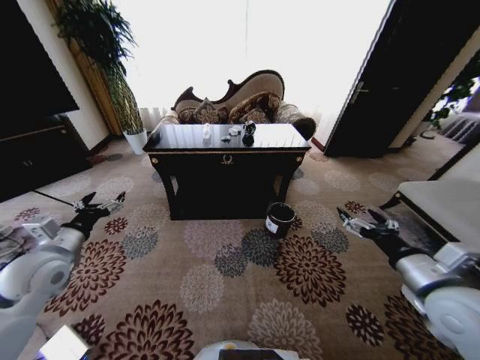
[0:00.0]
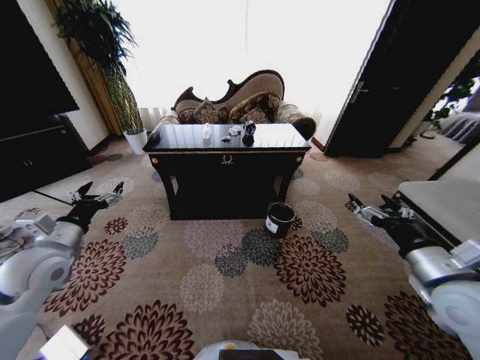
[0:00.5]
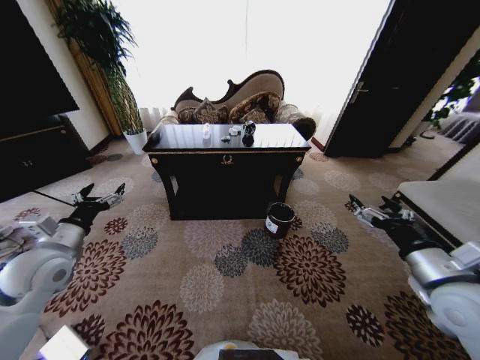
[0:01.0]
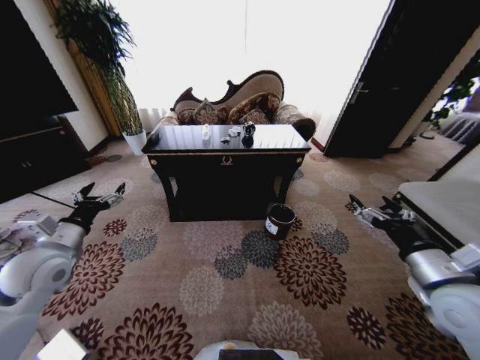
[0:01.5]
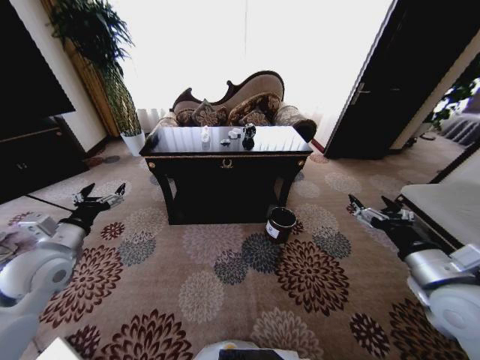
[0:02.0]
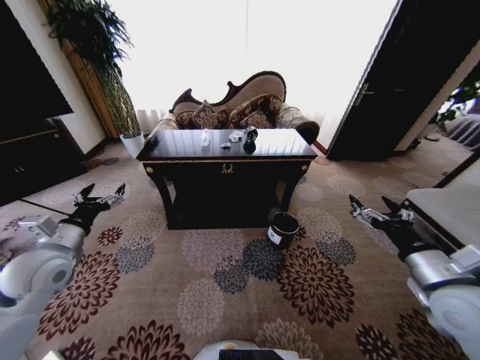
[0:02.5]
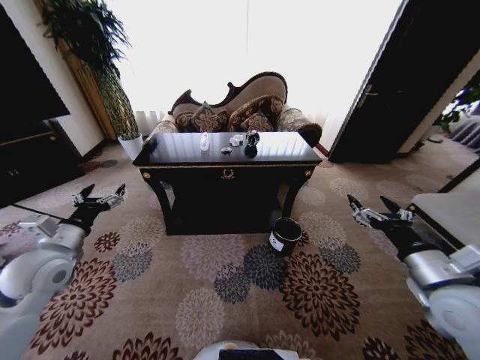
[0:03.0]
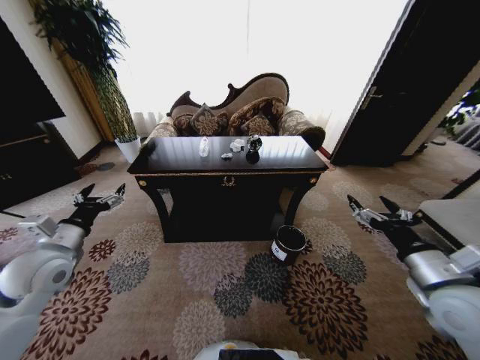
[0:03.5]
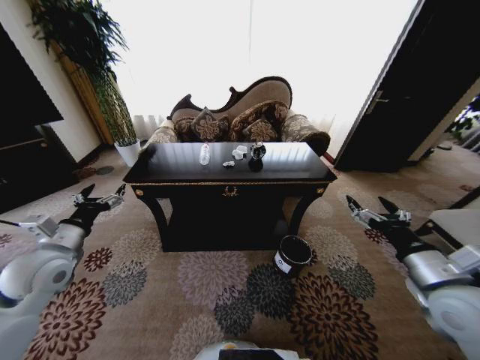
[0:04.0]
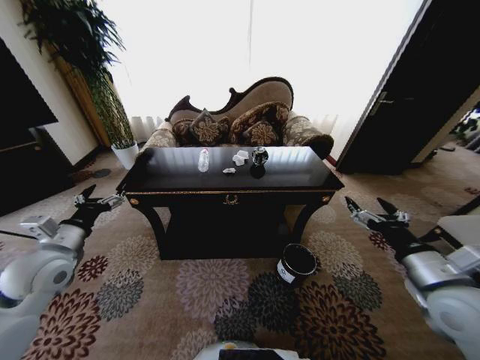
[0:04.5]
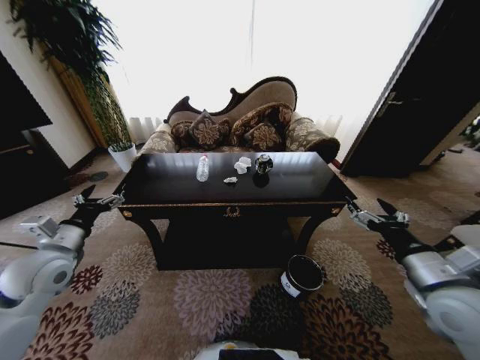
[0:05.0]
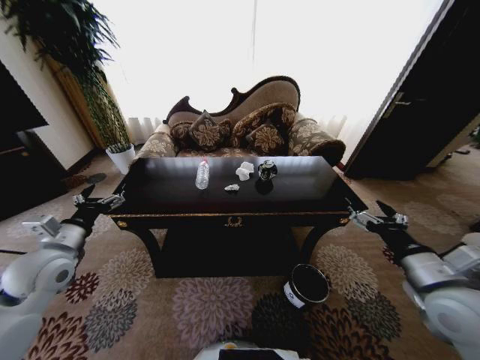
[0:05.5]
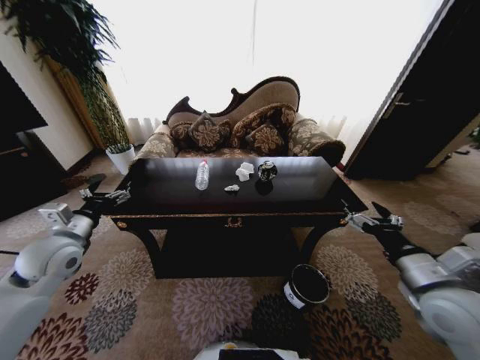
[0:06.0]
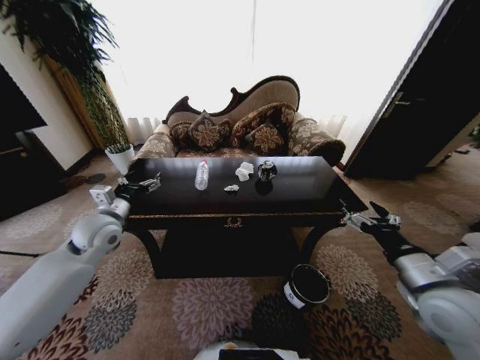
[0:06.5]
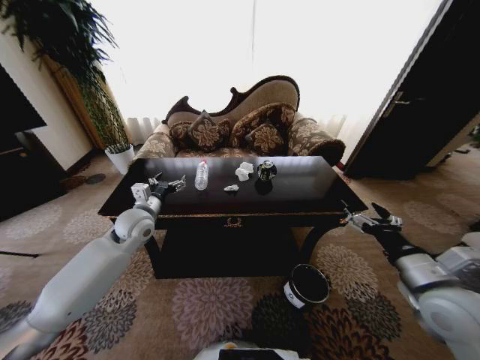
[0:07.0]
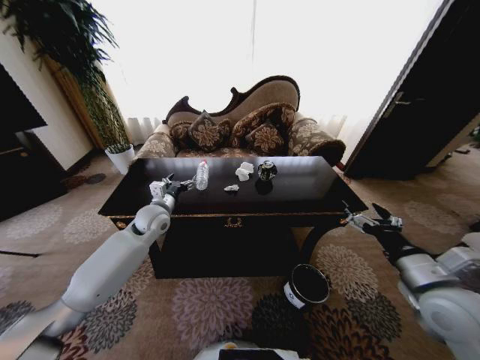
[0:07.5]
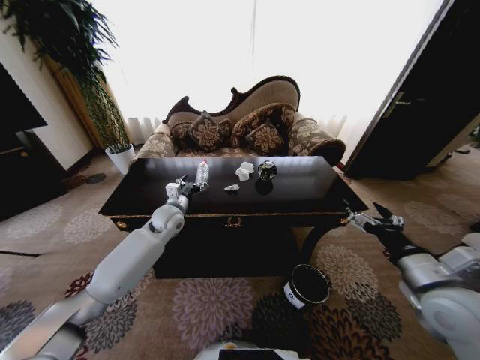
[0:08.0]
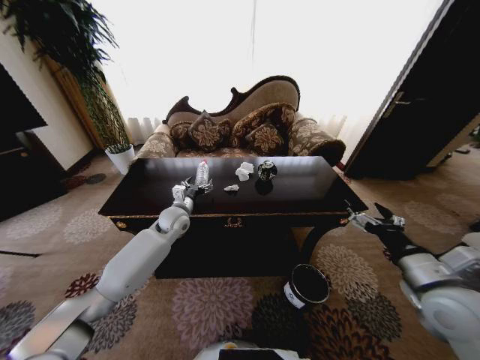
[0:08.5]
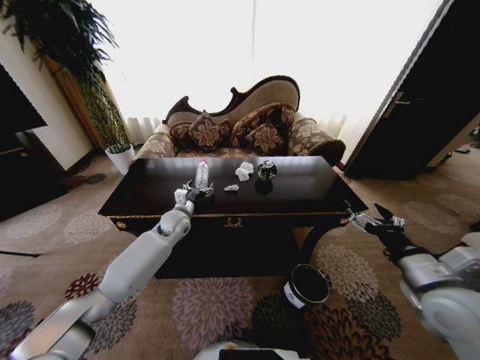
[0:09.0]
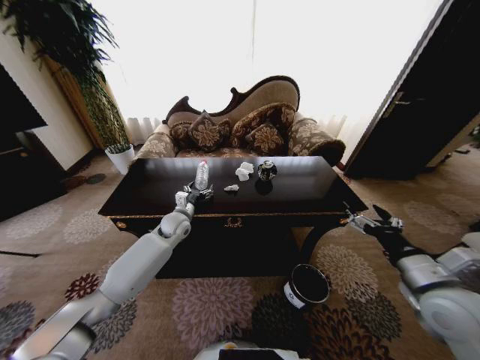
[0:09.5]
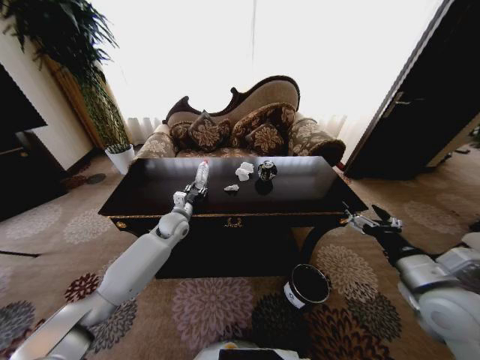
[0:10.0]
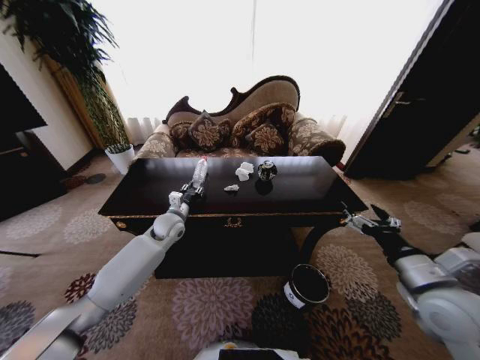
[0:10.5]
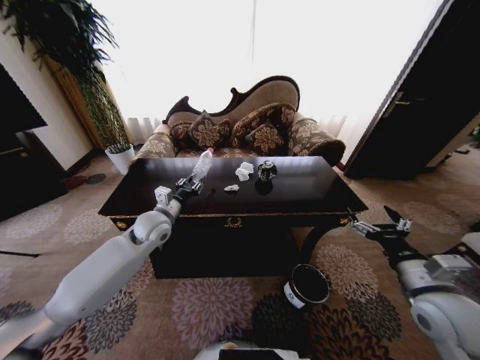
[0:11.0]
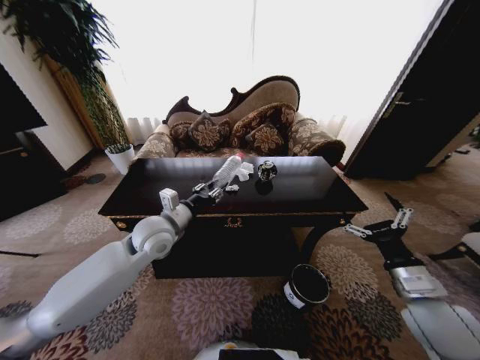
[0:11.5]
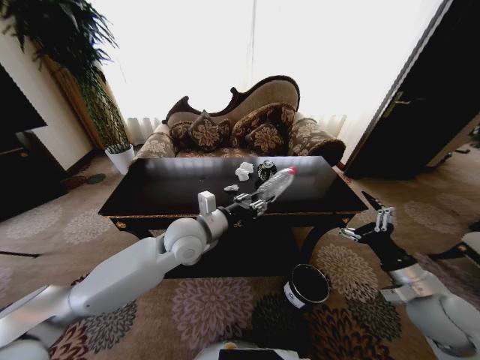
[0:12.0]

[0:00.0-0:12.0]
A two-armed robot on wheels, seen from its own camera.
Task of the whole recording: Move to the front of the table and place the trash on the table into the trash bin.
0:06.0 to 0:08.0: The left gripper goes about 25 cm to the right and forward.
0:08.0 to 0:10.0: The left gripper closes its fingers.
0:10.0 to 0:12.0: The right gripper moves downward, roughly 5 cm, while the left gripper is displaced backward, upward and to the right by some 20 cm.

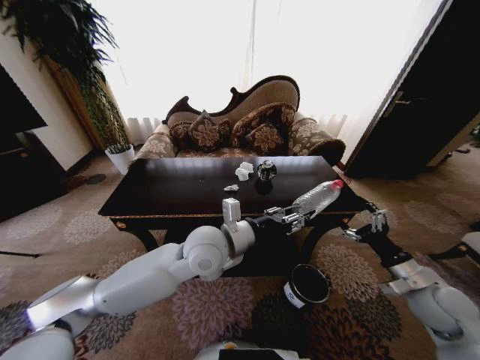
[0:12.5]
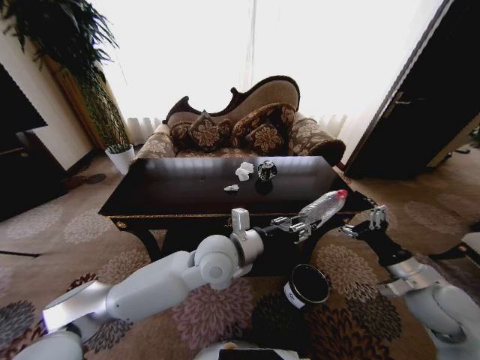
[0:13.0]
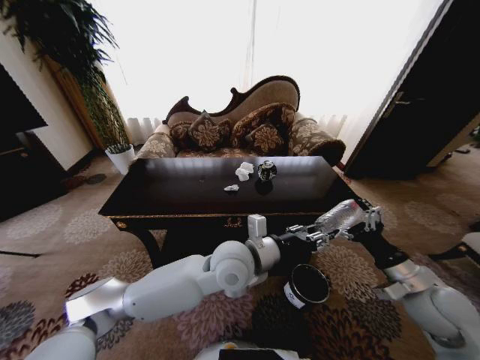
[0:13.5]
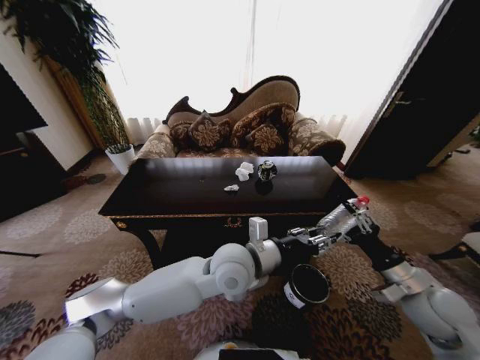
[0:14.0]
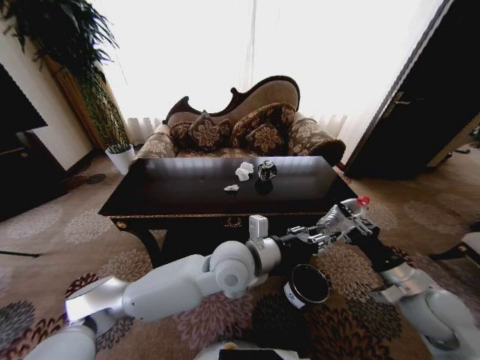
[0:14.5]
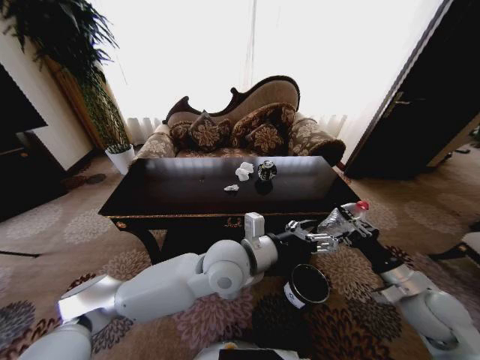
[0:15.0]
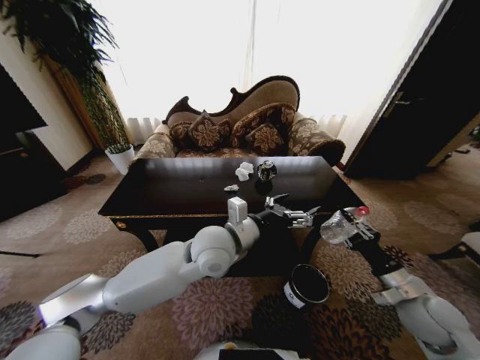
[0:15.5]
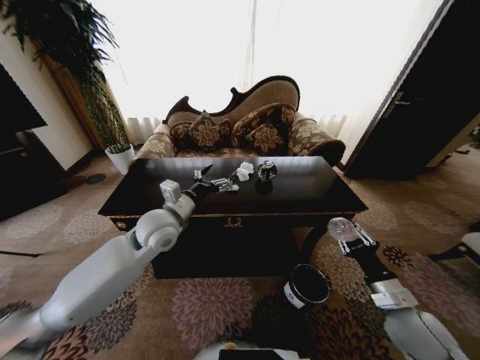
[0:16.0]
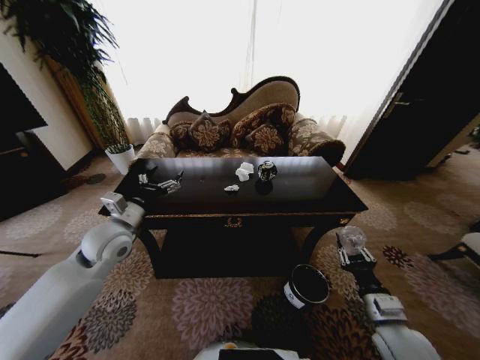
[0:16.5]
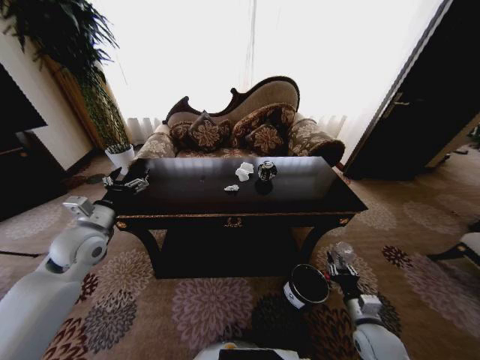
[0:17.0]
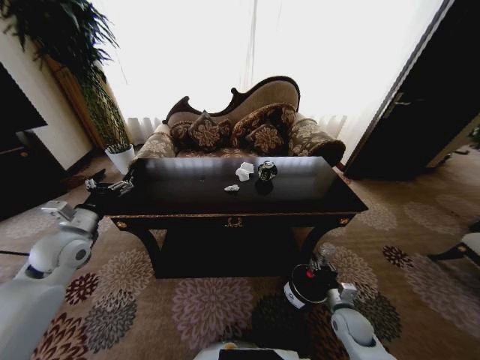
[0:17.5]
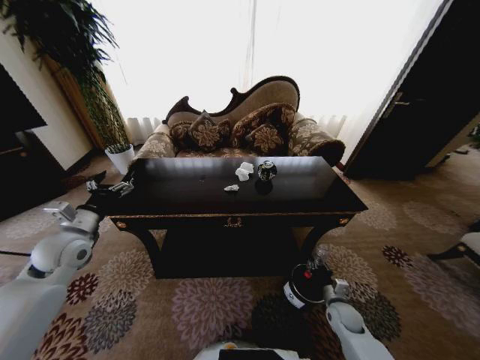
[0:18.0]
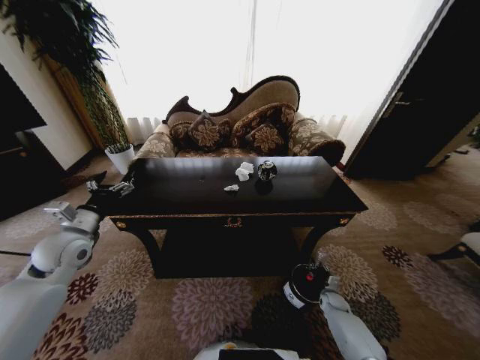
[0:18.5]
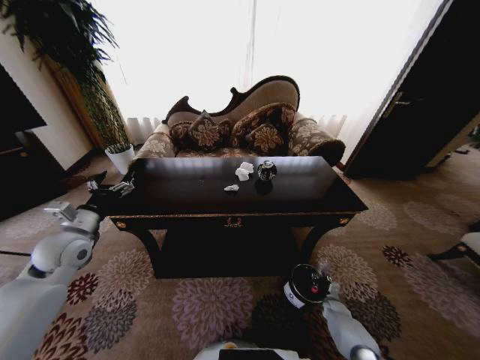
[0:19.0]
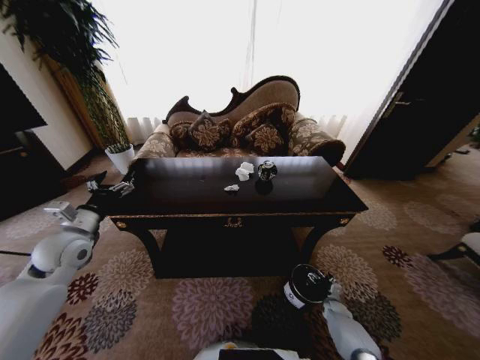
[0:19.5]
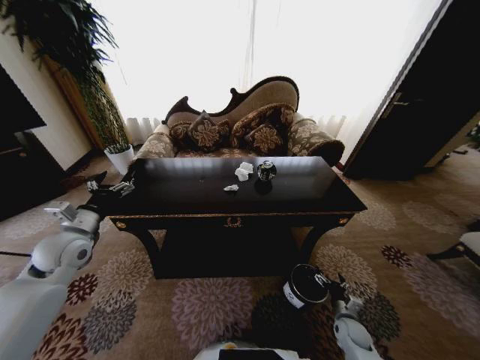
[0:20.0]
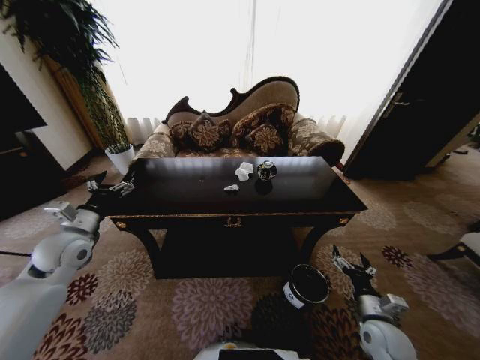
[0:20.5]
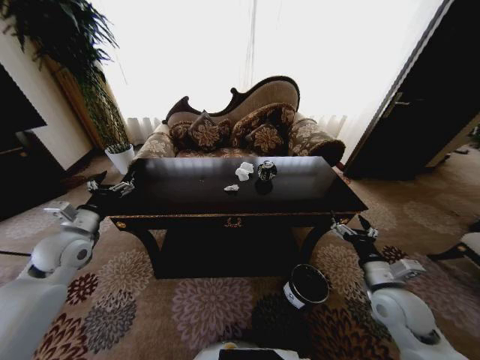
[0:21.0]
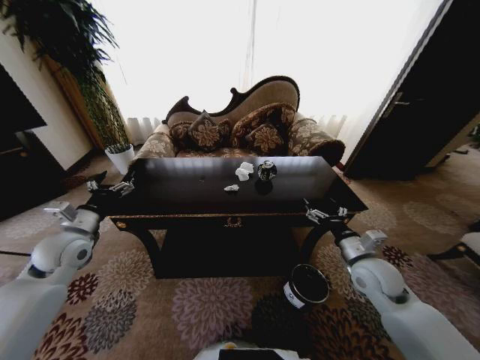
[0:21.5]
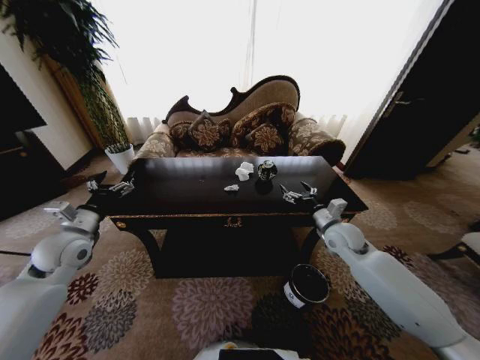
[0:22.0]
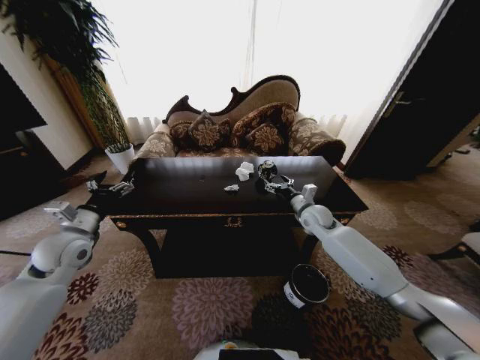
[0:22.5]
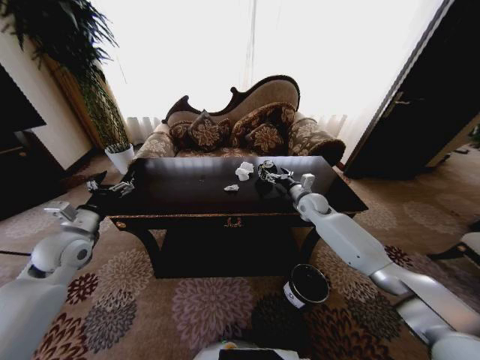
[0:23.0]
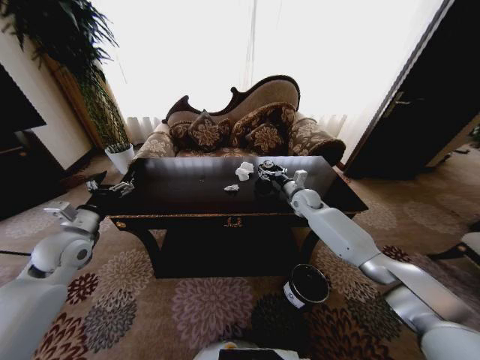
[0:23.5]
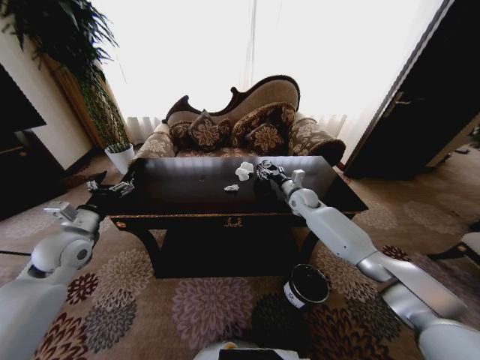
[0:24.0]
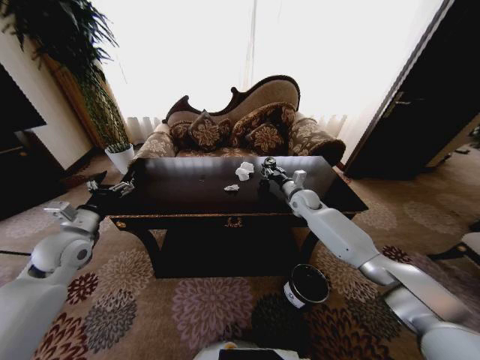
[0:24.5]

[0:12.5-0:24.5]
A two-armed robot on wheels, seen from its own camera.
Task of the whole recording: Move to the front of the table and place the trash on the table into the trash bin.
0:12.5 to 0:14.5: The right gripper closes; the left gripper shifts roughly 5 cm to the right.
0:14.5 to 0:16.5: The left gripper travels to the left by about 30 cm, and opens up; the right gripper goes roughly 10 cm downward, to the left and backward.
0:16.5 to 0:18.5: The left gripper shifts some 10 cm to the left; the right gripper moves downward and forward, approximately 30 cm.
0:18.5 to 0:20.5: The right gripper travels upward and backward by some 25 cm, and opens its fingers.
0:20.5 to 0:22.5: The right gripper goes roughly 35 cm forward and upward.
0:22.5 to 0:24.5: The right gripper travels forward by roughly 10 cm, and closes up.

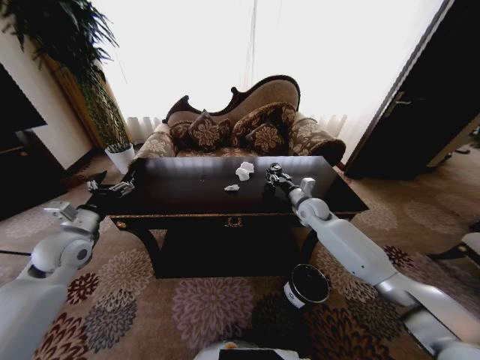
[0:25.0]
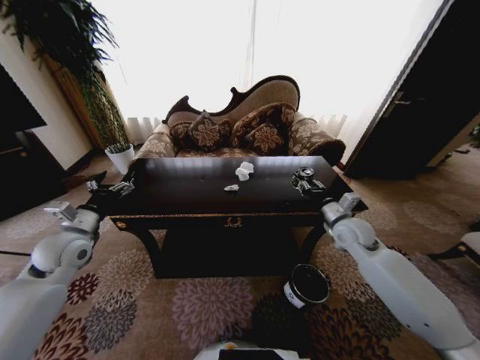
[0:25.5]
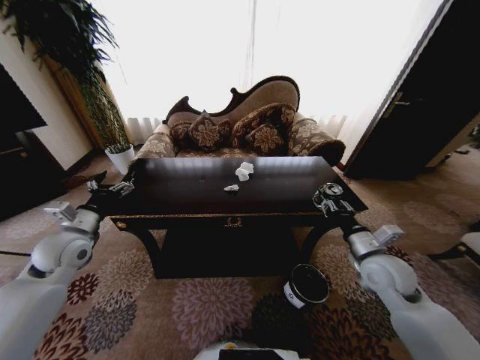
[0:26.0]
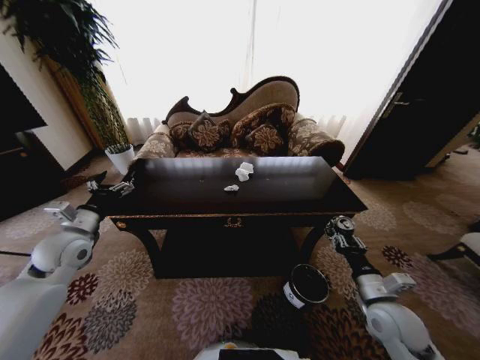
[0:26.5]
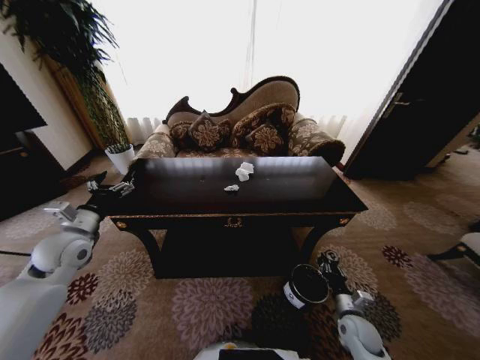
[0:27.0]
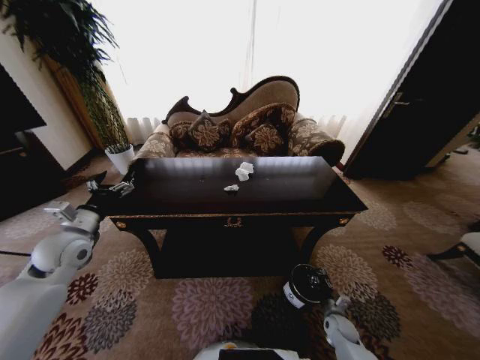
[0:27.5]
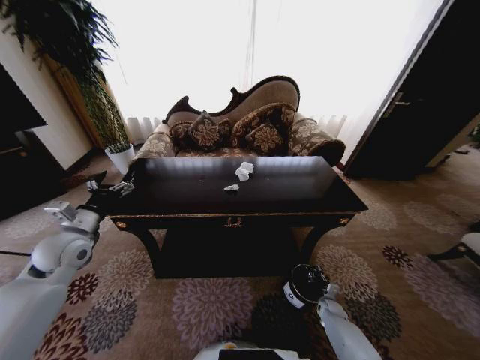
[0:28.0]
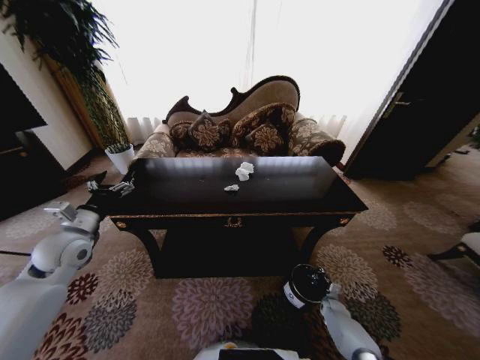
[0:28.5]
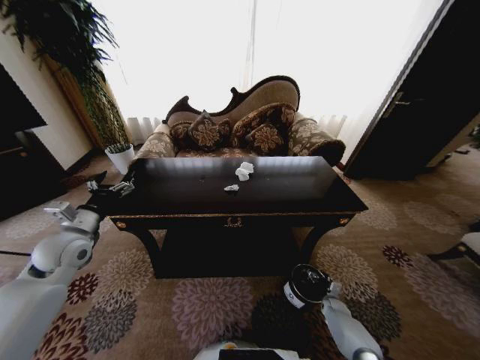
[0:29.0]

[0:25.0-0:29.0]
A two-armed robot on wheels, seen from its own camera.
Task of the whole recording: Move to the front of the table and place the trash on the table into the trash bin.
0:25.0 to 0:27.0: The right gripper travels backward and downward by roughly 40 cm.
0:27.0 to 0:29.0: The right gripper goes some 20 cm downward and forward, and opens its fingers.
